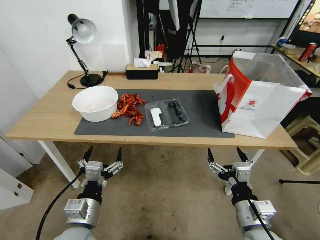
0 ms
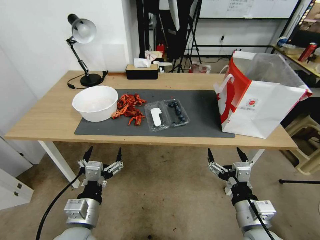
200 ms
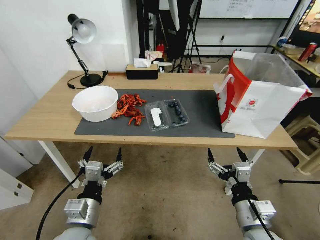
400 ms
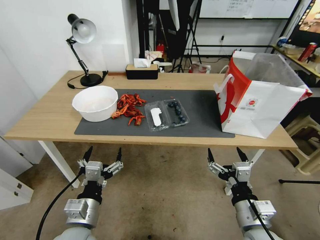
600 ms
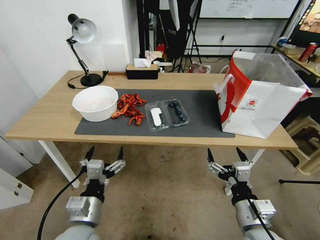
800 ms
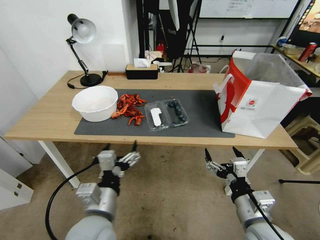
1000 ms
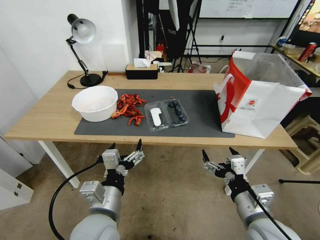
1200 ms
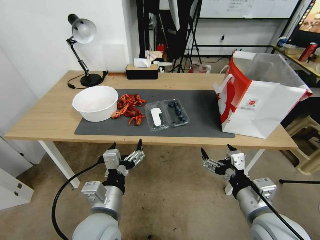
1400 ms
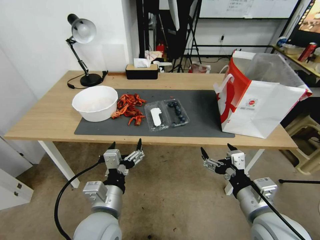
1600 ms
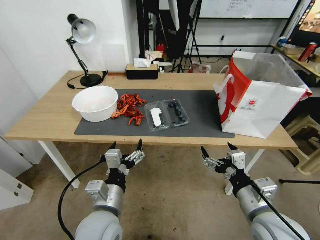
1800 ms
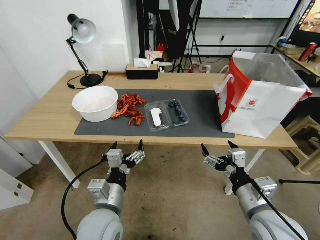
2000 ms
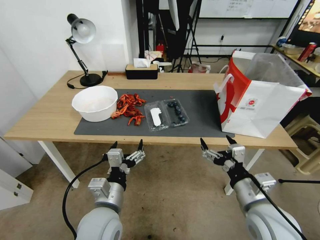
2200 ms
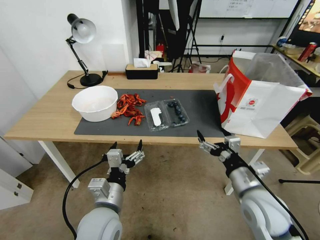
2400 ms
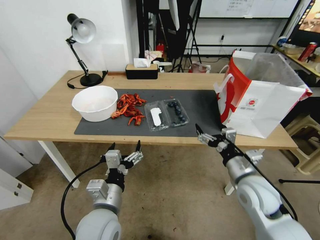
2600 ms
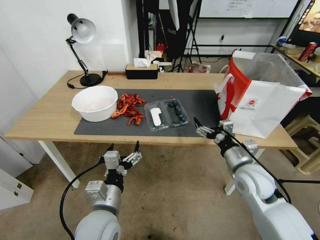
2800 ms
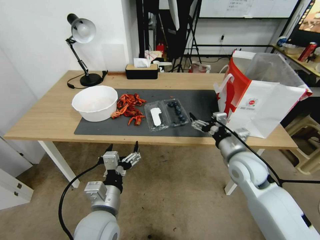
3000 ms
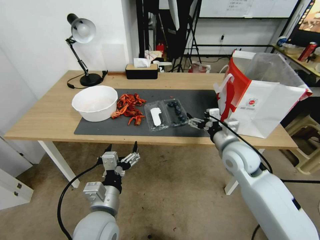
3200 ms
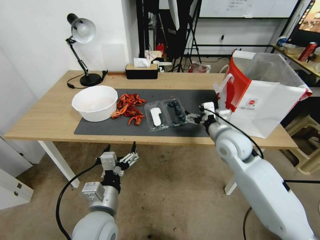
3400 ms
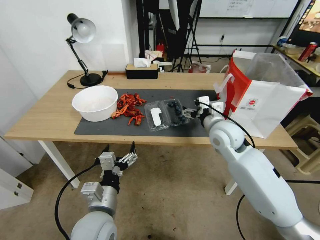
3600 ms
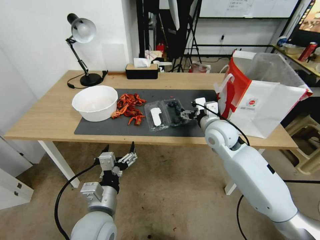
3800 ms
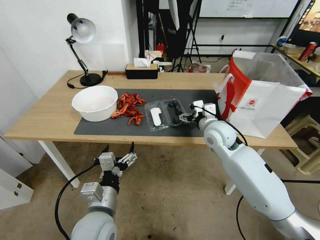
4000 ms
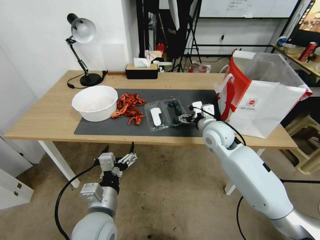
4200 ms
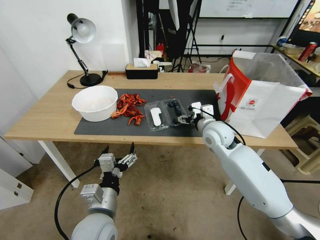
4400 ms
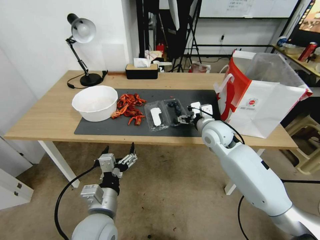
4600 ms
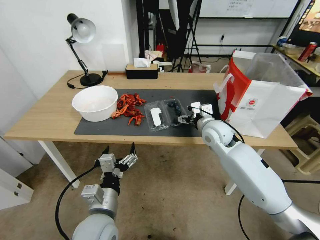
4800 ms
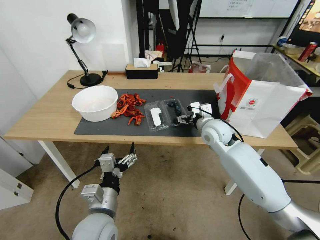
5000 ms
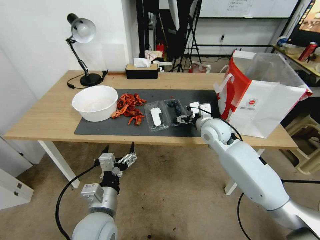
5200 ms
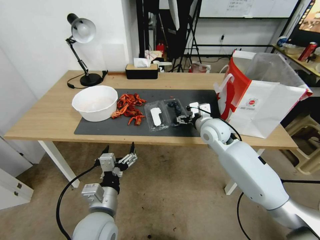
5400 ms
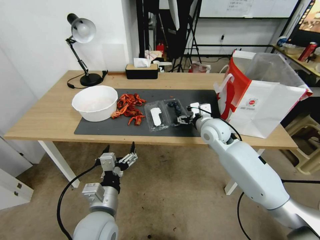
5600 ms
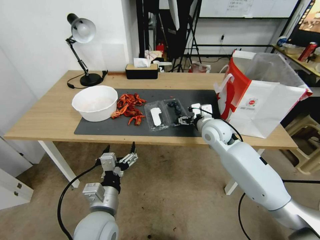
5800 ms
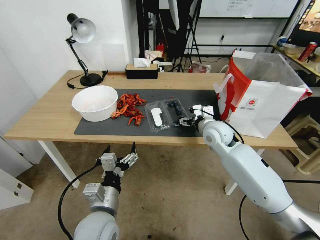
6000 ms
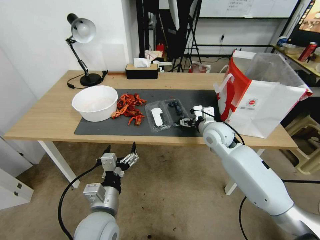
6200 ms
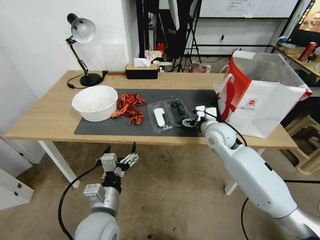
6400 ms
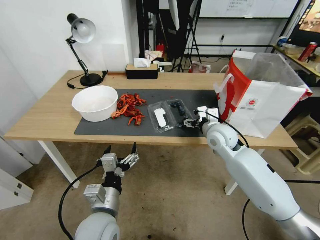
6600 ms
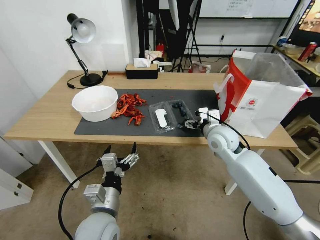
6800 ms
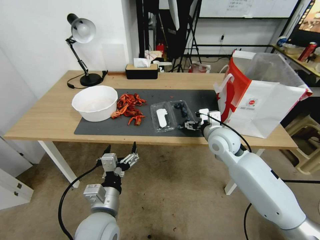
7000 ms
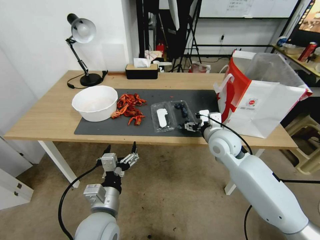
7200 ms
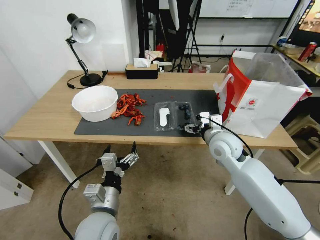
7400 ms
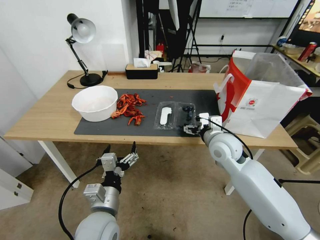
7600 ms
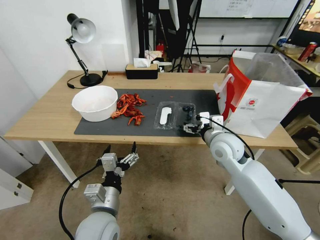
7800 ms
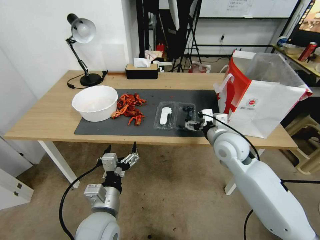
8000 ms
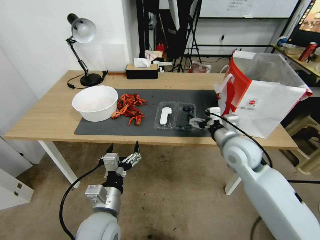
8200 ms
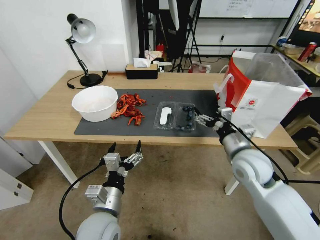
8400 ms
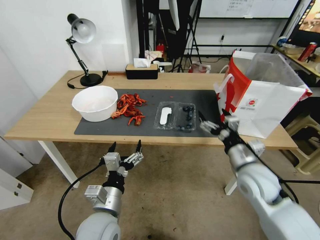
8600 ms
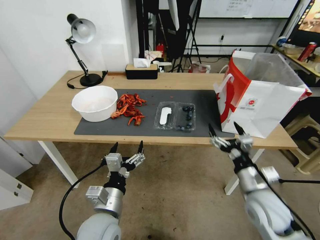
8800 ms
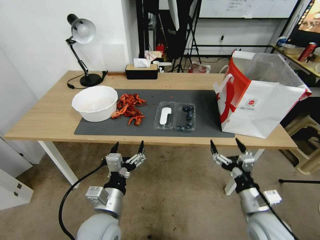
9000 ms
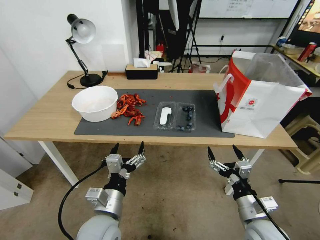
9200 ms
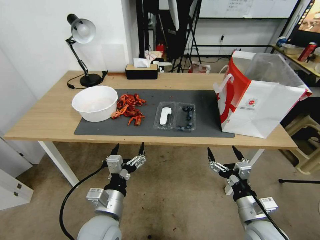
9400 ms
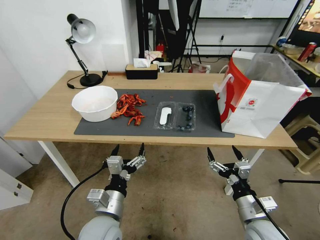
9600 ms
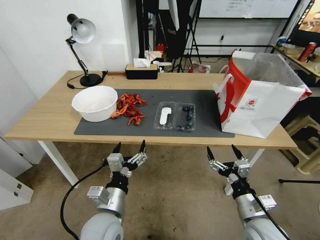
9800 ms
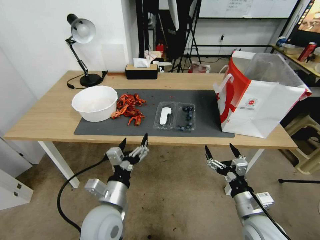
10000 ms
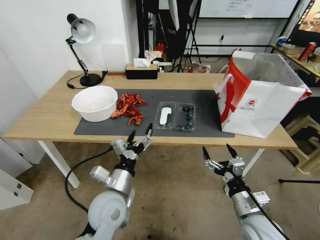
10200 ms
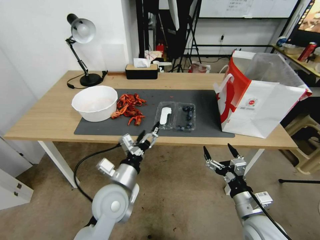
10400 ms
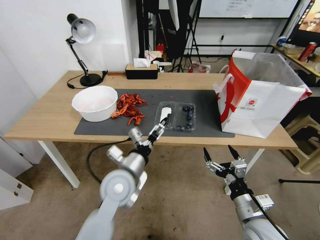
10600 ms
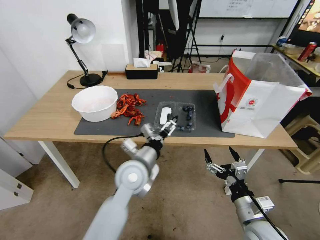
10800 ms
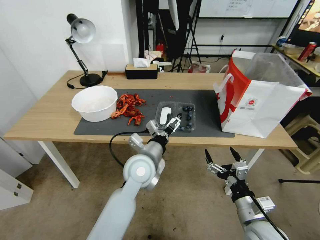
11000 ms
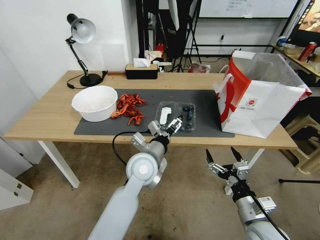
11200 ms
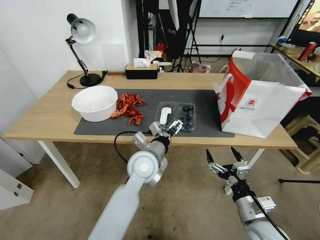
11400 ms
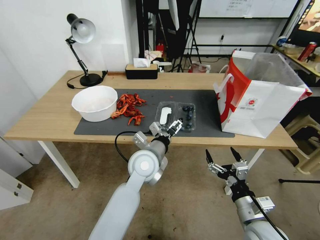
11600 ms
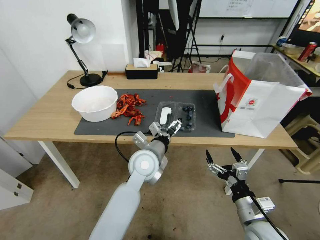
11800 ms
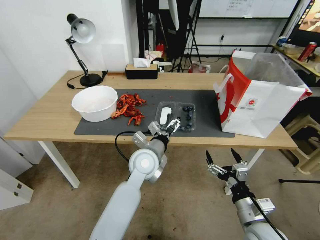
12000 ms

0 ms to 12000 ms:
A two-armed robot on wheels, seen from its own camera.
Task of the whole recording: Close the takeout container lid, then place the container into the takeout bag.
1600 ms to 3000 ms: The right gripper heads forward, covering some 15 cm.
3000 ms to 4400 ms: The right gripper travels forward and to the left by some 15 cm.
4400 ms to 6000 ms: The grippers make only small movements.
6000 ms to 7600 ms: The right gripper travels backward by approximately 5 cm.
7600 ms to 9000 ms: The right gripper moves backward, downward and to the right, about 25 cm.
9000 ms to 10400 ms: The left gripper is displaced forward by approximately 5 cm.
10400 ms to 12000 ms: The left gripper travels forward and to the right by about 15 cm.

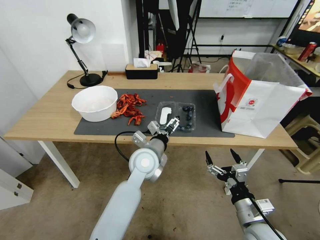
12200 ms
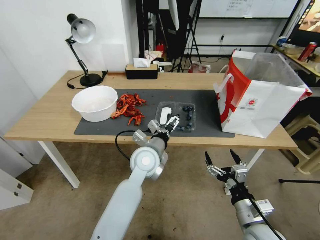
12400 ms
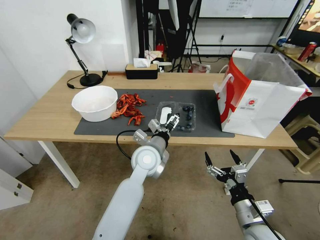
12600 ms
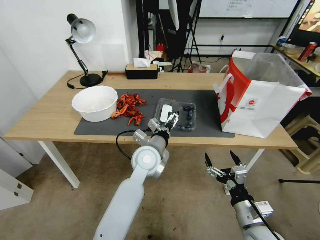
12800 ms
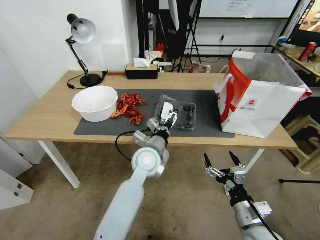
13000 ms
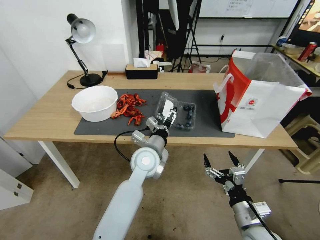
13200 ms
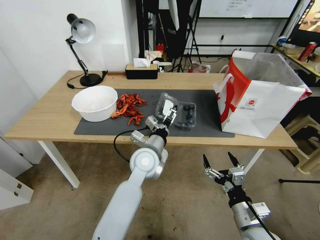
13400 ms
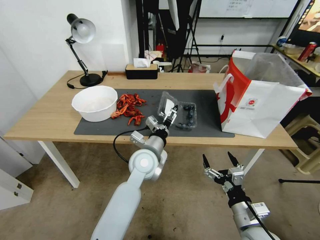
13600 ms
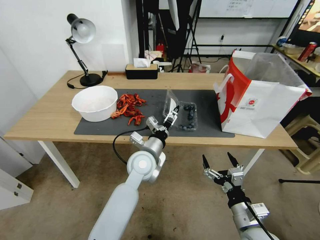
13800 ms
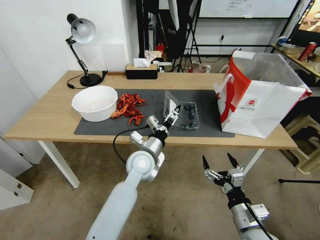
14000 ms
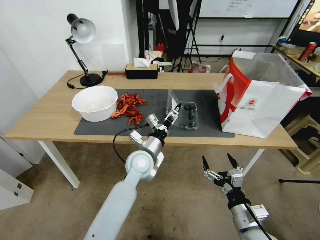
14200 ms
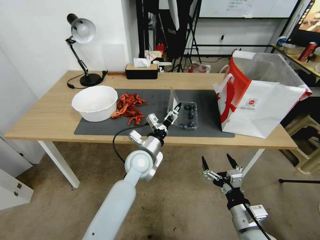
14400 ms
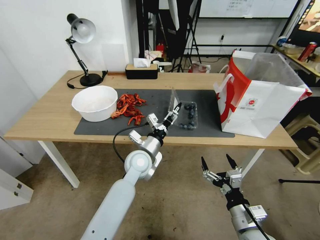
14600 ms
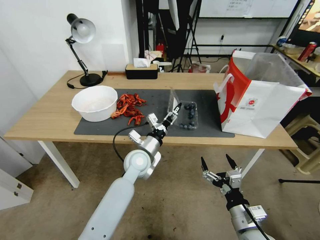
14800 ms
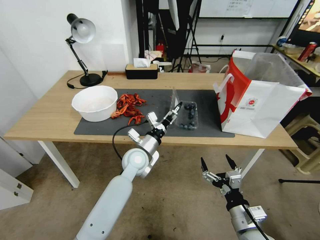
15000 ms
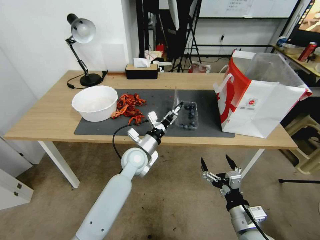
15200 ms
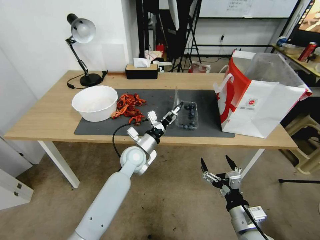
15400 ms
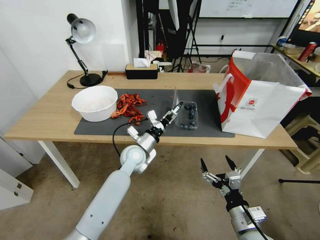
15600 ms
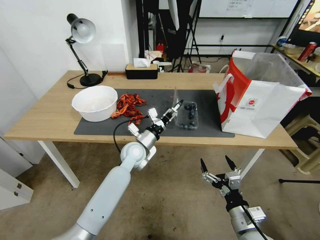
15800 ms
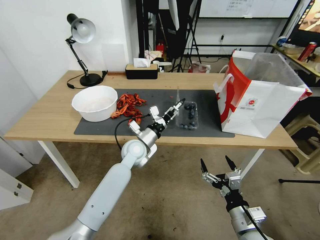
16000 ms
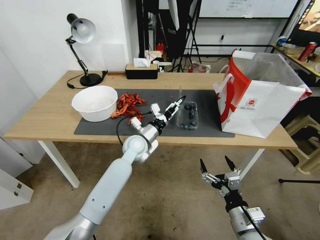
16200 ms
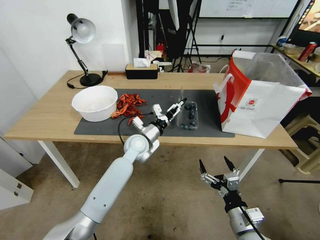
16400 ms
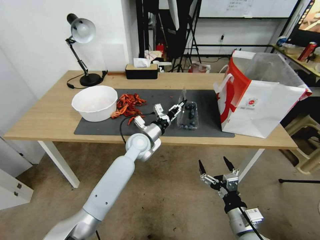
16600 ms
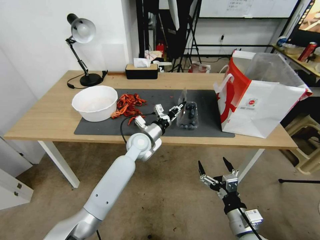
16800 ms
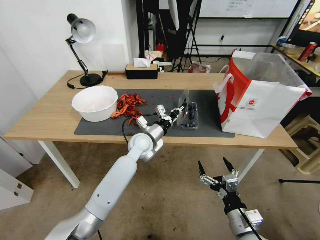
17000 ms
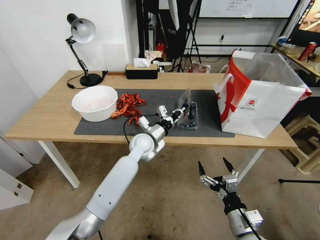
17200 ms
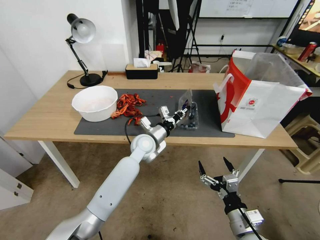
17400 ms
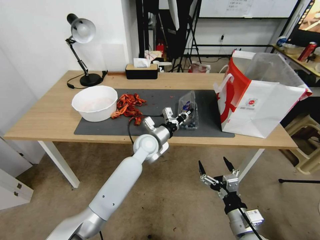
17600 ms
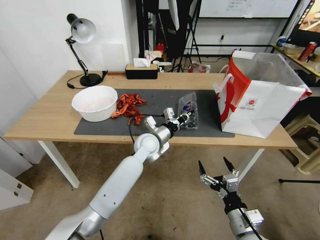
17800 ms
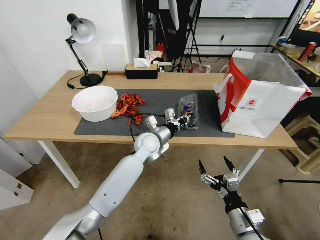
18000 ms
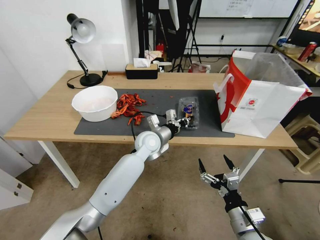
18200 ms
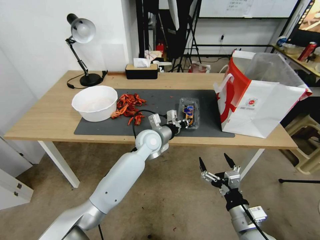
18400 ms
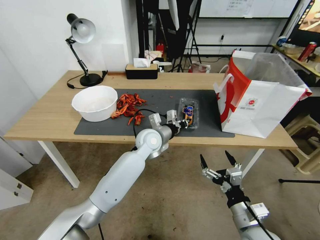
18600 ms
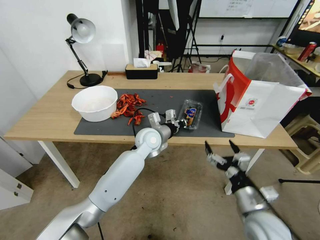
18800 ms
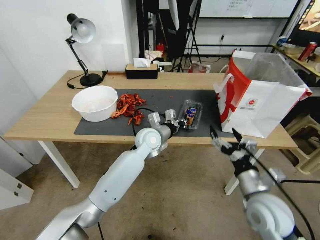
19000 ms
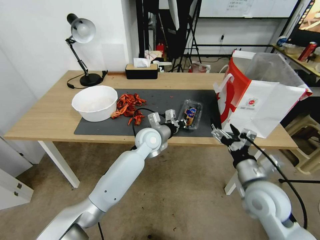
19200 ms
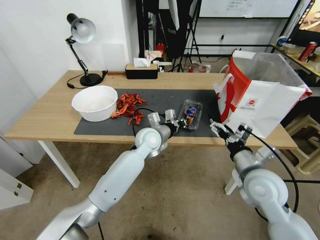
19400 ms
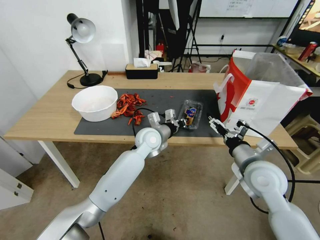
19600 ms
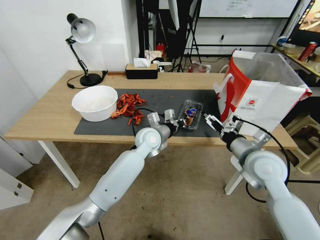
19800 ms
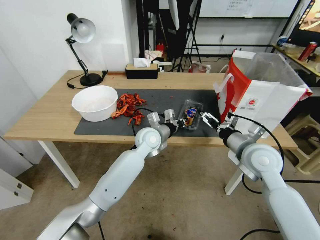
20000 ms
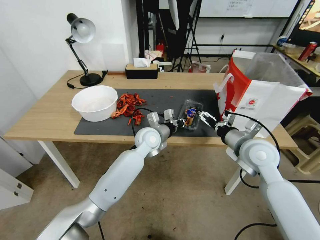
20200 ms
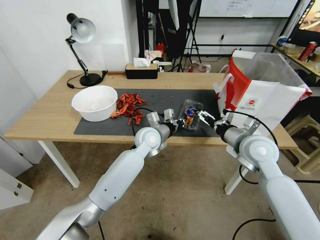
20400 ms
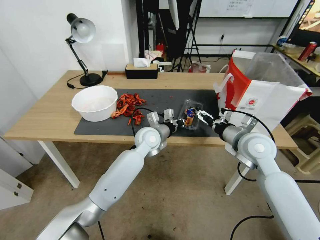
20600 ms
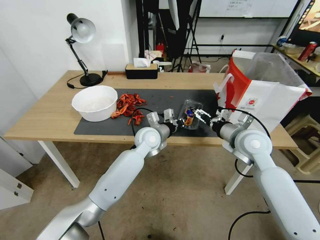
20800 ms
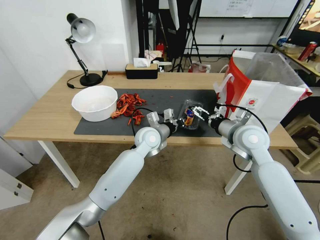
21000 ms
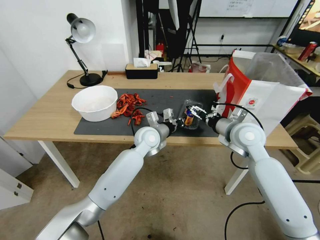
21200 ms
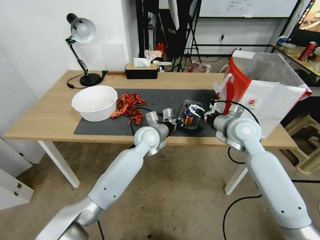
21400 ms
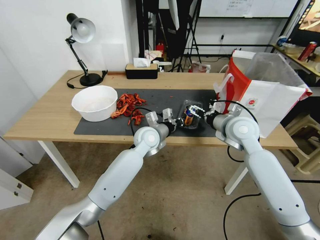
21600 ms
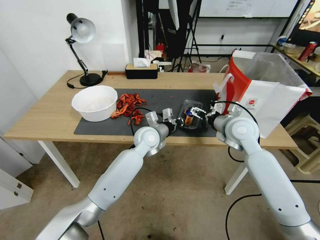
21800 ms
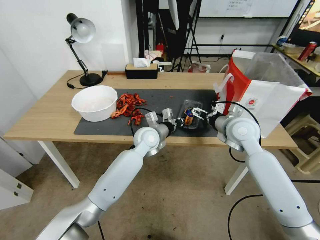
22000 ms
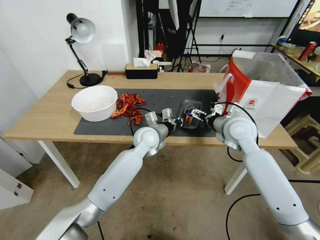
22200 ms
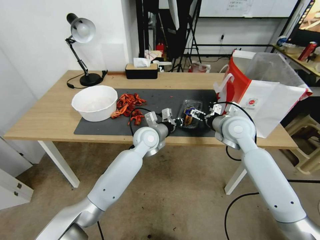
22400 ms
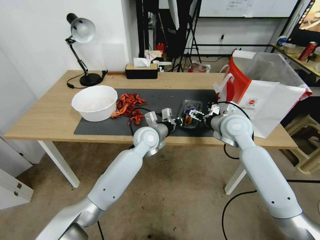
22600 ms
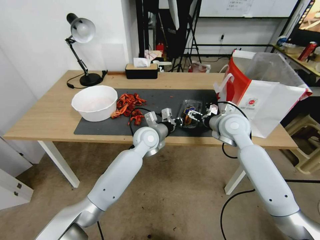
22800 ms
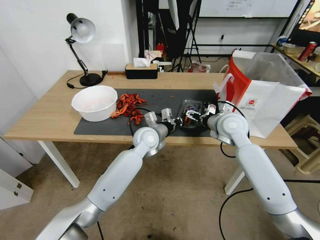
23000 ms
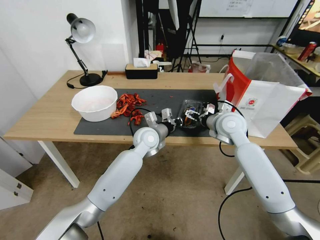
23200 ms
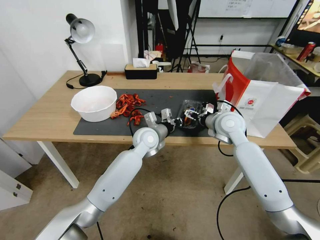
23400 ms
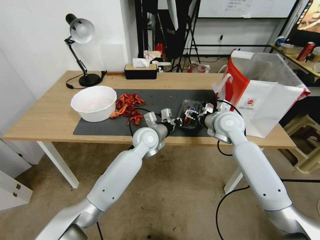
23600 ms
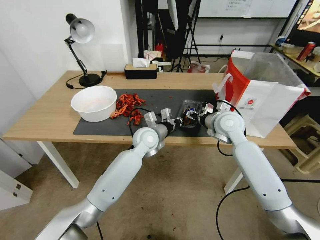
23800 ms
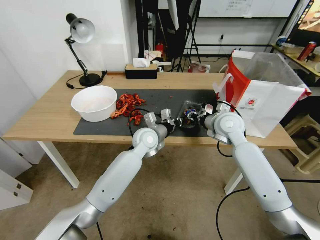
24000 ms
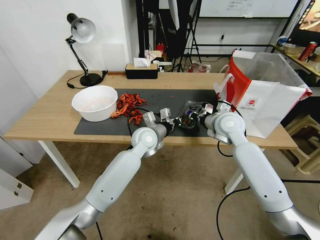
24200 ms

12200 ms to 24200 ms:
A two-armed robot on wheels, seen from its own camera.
Task of the whole recording: Close the takeout container lid, then place the container into the takeout bag.
12200 ms to 13800 ms: The grippers stay close to where they were, moving slightly.
13800 ms to 15200 ms: The left gripper ends up some 5 cm from where it was.
15200 ms to 16600 ms: The left gripper is displaced forward by about 5 cm, and closes.
16600 ms to 18200 ms: The left gripper closes its fingers.
18200 ms to 19800 ms: The right gripper moves forward and upward, some 20 cm.
19800 ms to 21200 ms: The right gripper shifts roughly 10 cm forward.
21200 ms to 22600 ms: There are only small adjustments of the grippers.
22600 ms to 24200 ms: The right gripper closes its fingers.
